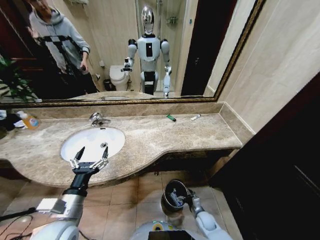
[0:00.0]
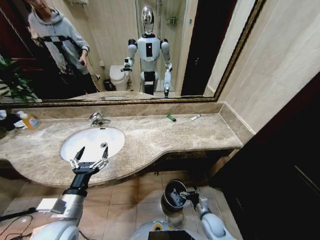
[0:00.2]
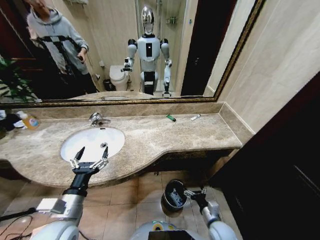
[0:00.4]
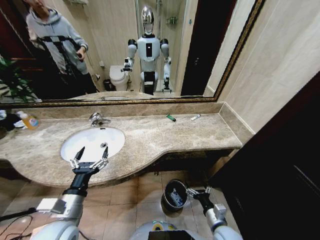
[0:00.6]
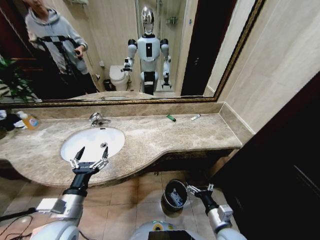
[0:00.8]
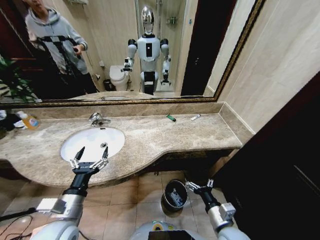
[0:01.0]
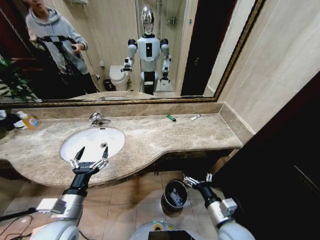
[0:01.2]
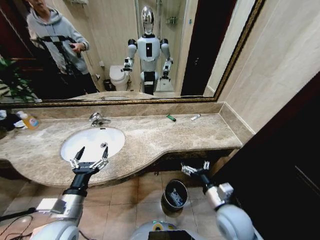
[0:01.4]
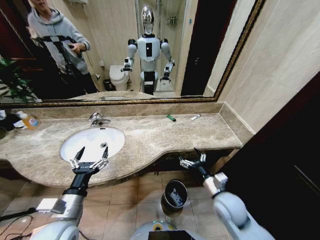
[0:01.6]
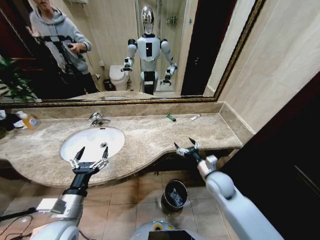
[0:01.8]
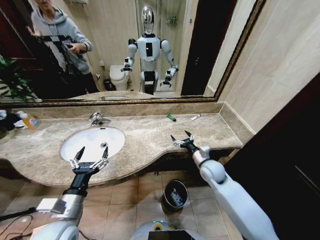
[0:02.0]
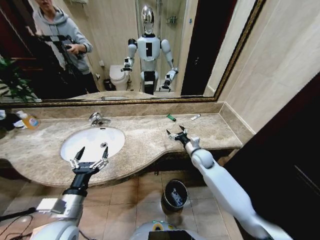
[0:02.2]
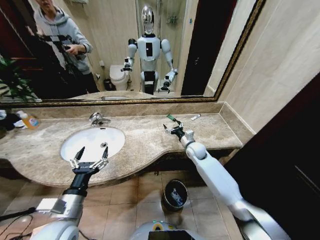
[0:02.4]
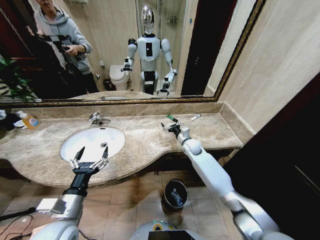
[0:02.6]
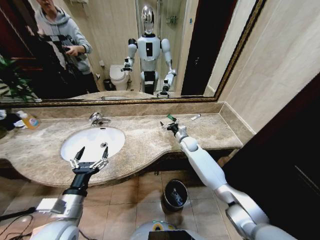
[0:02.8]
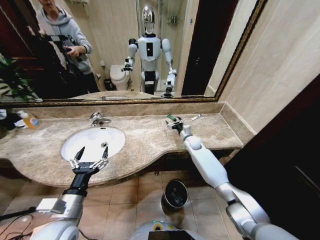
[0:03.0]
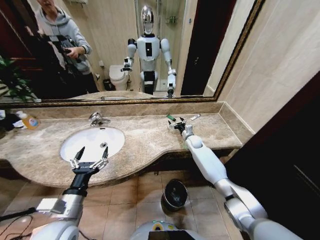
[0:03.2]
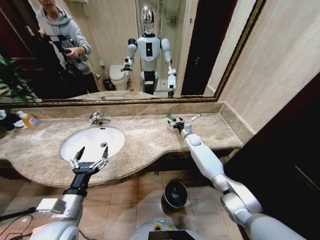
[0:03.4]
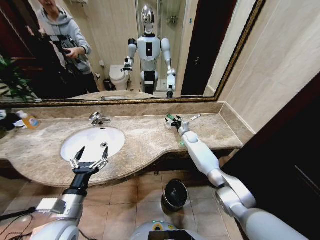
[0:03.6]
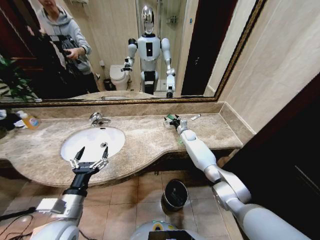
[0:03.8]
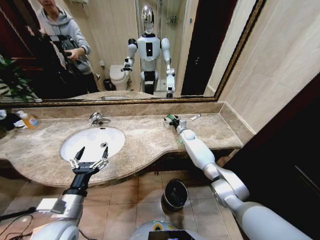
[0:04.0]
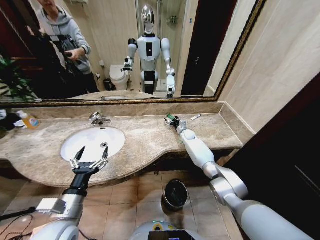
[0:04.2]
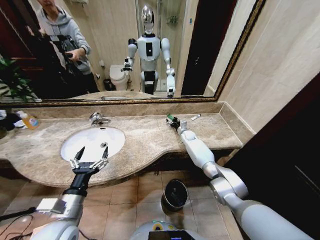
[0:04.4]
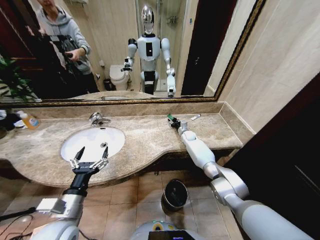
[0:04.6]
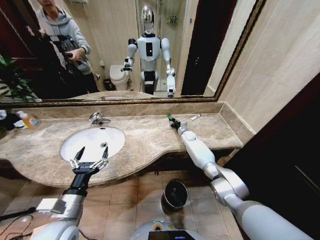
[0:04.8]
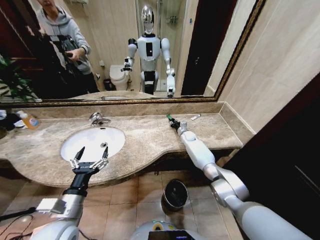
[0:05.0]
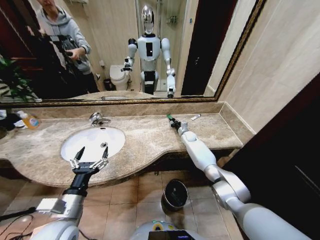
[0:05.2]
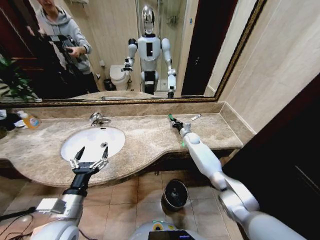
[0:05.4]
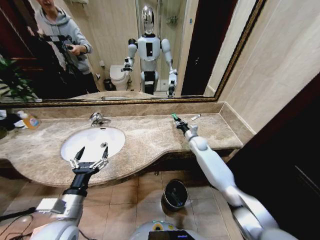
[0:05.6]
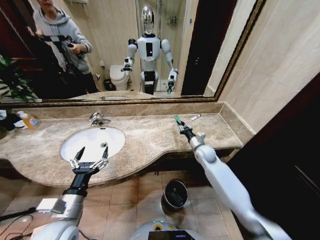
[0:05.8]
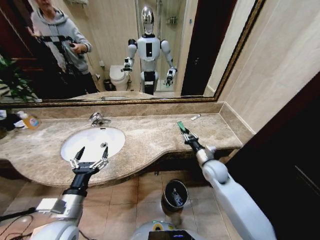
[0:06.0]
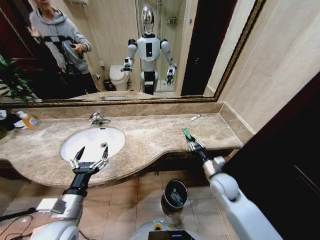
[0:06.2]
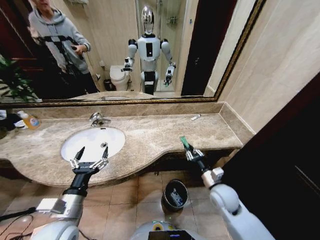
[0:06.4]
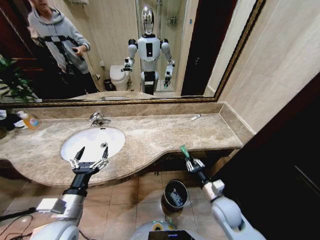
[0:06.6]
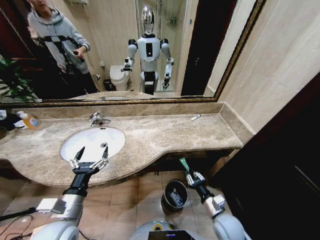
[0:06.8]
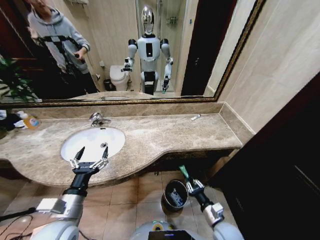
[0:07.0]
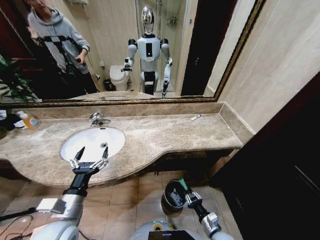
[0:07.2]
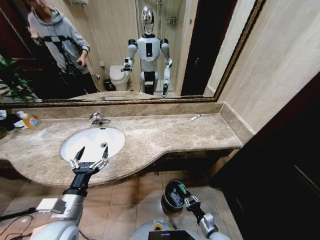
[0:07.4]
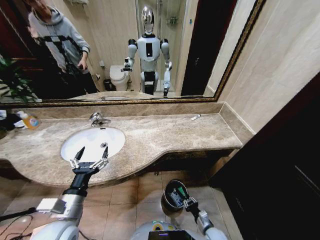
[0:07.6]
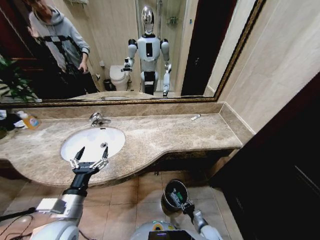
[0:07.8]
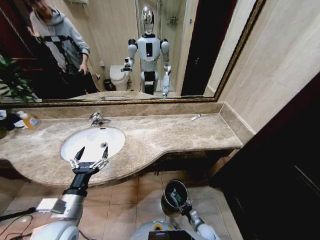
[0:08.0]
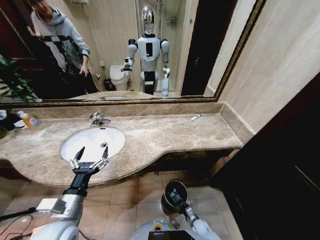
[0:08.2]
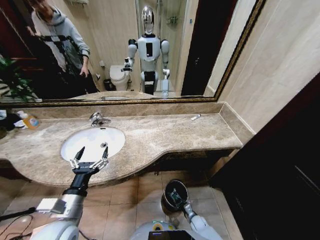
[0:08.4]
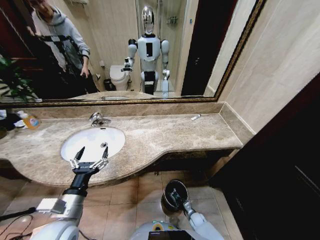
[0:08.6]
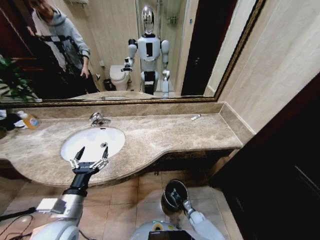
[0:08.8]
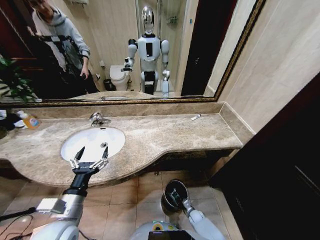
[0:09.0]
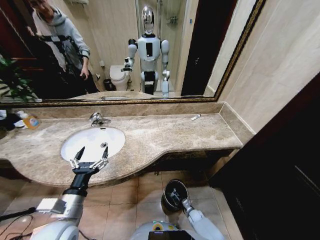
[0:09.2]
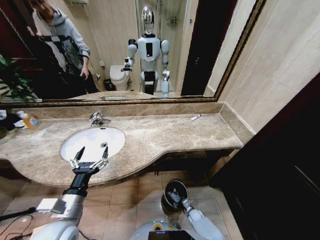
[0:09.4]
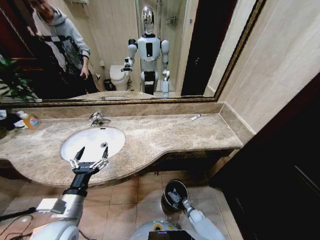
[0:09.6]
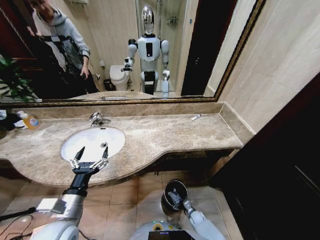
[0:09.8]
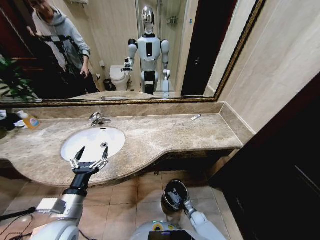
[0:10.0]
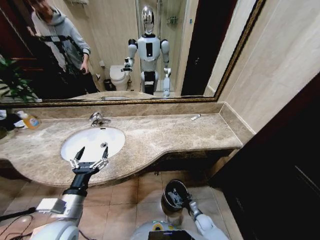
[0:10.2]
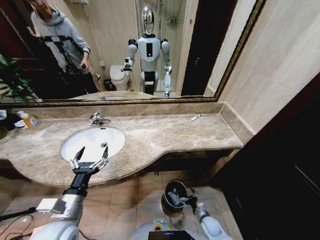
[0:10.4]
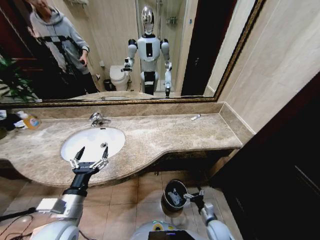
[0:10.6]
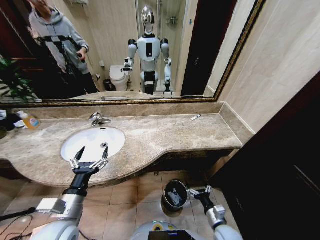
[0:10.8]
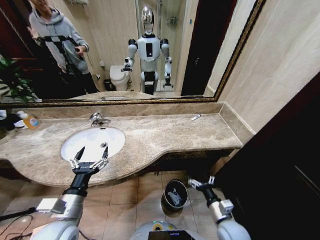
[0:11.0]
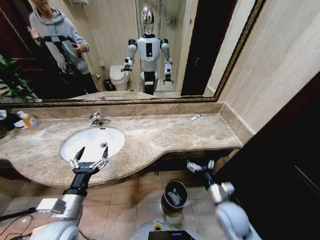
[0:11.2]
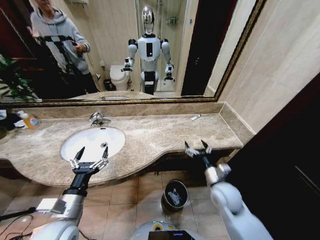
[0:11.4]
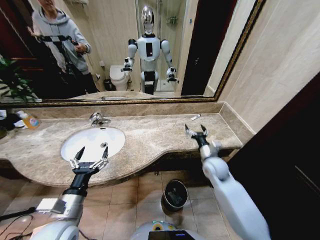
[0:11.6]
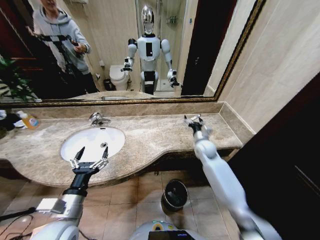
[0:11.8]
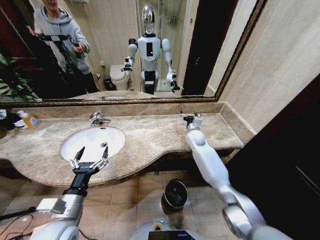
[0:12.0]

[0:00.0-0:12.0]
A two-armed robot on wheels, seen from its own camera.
Task of the whole recording: Pick up the trash from the sink and place it in the trash bin.
0.0 to 1.6 s: The right gripper shifts approximately 30 cm upward.
1.6 to 3.0 s: The right gripper moves forward, approximately 30 cm.
3.0 to 4.4 s: The right gripper travels forward by some 10 cm.
4.4 to 6.0 s: The right gripper moves backward, about 25 cm, and closes.
6.0 to 7.6 s: The right gripper is displaced downward and backward by some 35 cm.
7.6 to 9.0 s: The right gripper heads downward and forward, covering some 15 cm.
9.0 to 10.4 s: The right gripper goes approximately 10 cm upward, and opens up.
10.4 to 12.0 s: The right gripper is displaced upward and forward by roughly 50 cm.

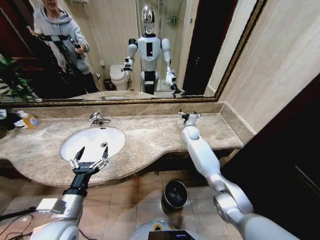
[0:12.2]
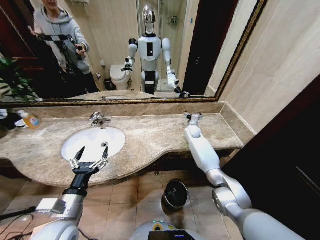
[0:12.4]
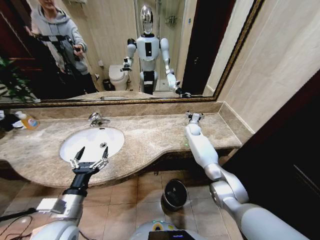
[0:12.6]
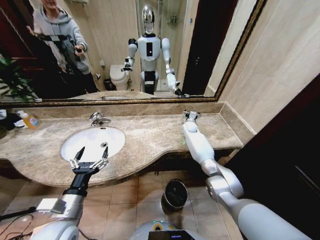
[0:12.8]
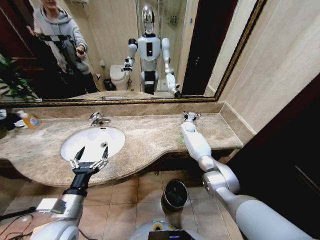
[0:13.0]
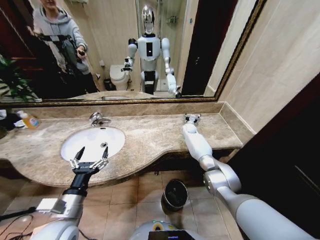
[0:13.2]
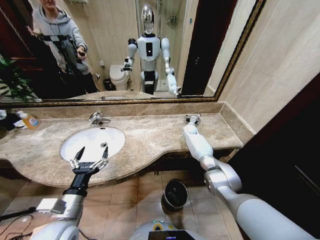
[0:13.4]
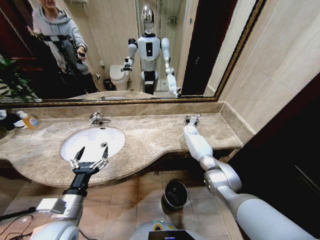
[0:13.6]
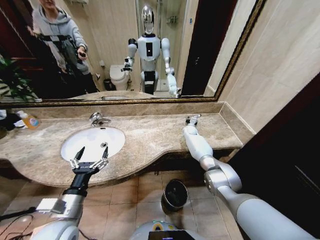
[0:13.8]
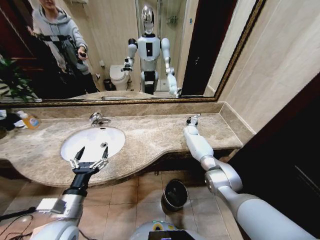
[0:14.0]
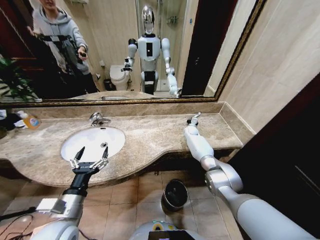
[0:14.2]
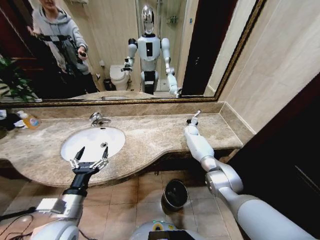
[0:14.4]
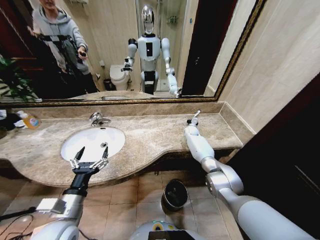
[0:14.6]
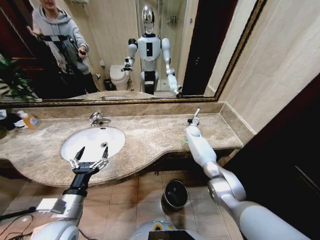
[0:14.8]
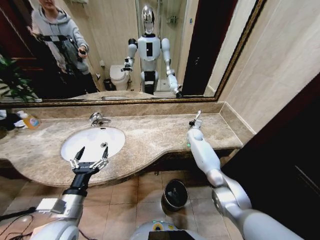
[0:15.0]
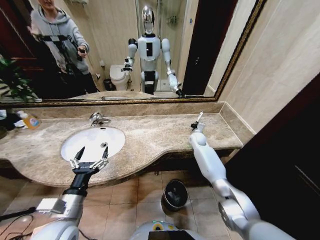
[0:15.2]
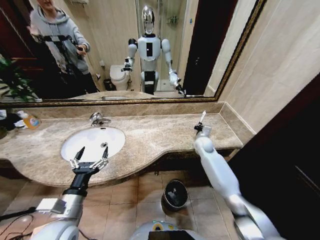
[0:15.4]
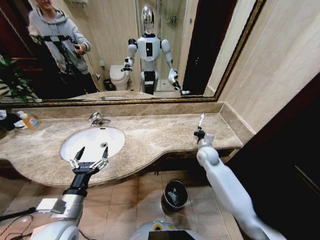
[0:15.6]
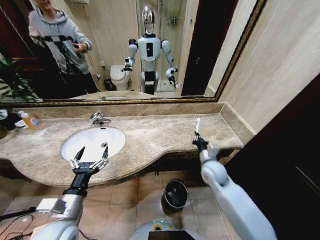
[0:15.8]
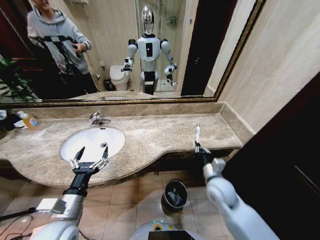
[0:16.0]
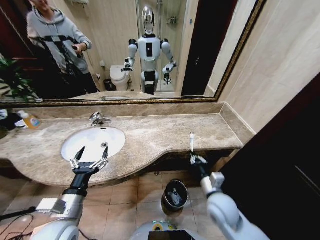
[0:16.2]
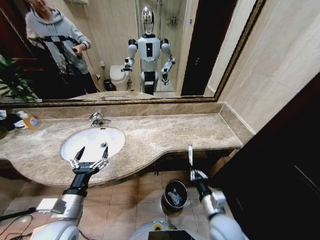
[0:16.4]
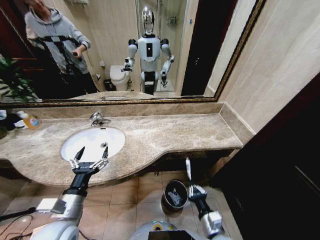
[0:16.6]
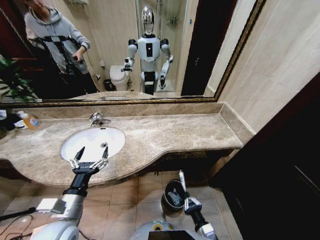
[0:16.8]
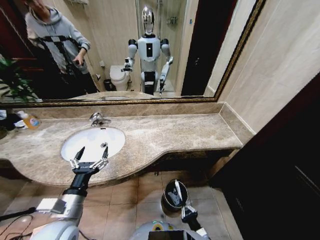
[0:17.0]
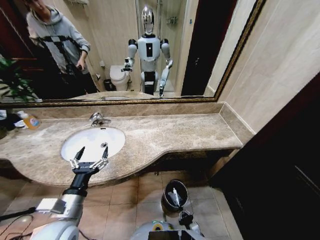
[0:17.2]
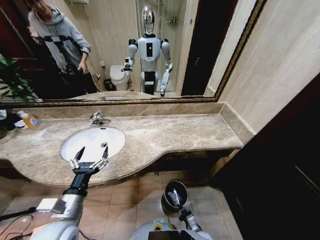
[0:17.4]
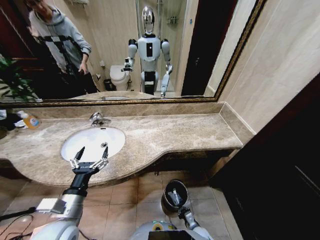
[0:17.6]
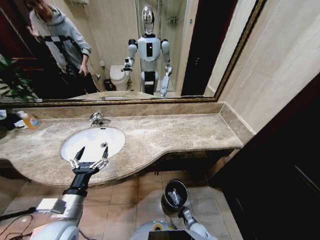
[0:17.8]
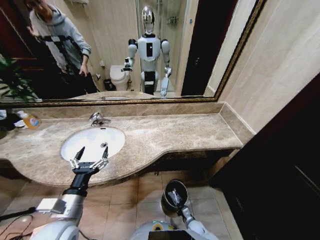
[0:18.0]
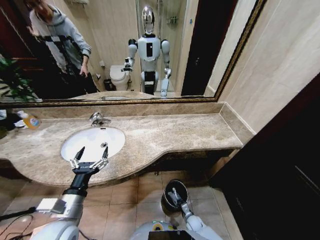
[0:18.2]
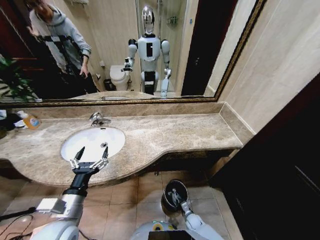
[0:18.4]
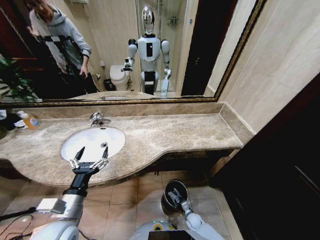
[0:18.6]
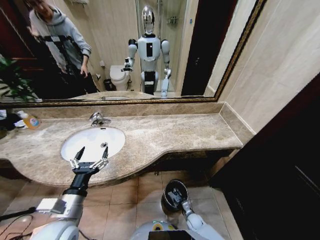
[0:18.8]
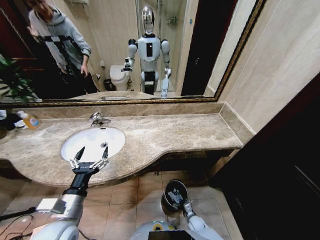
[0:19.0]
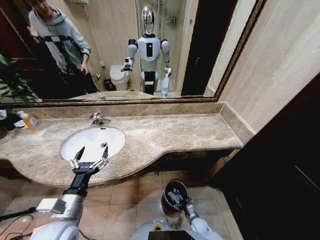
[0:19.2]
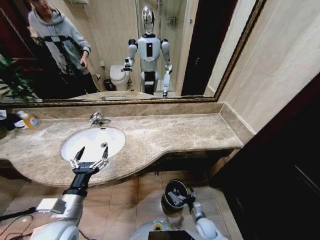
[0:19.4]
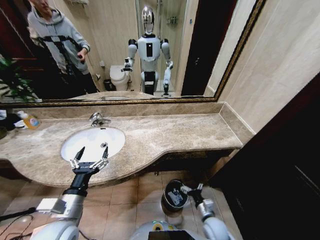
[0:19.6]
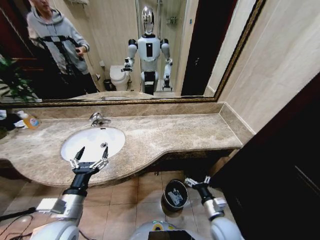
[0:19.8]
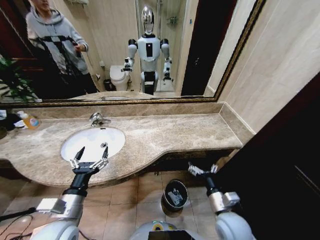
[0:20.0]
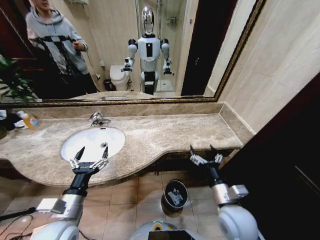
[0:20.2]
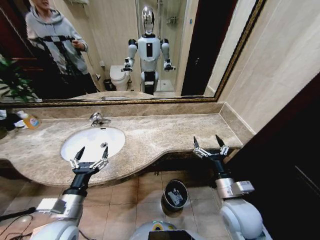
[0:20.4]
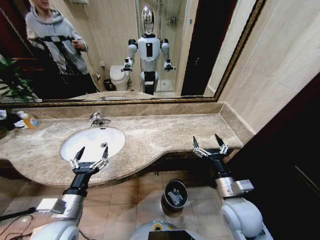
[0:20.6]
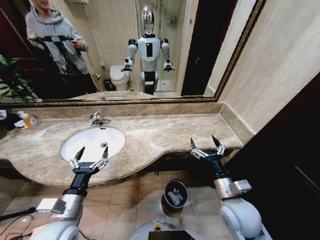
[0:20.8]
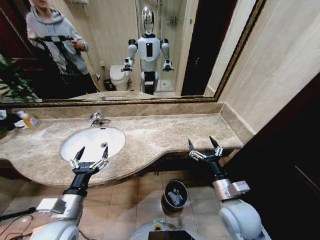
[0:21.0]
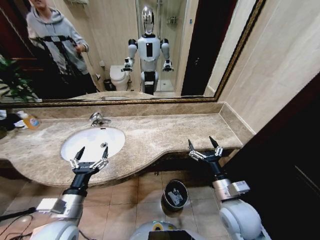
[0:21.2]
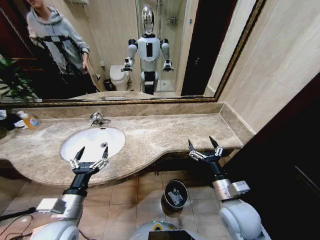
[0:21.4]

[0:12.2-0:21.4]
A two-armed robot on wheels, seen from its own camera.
Task of the whole recording: Pick up the trash from the sink and place it in the trash bin.
12.2 to 13.8 s: The right gripper heads forward and downward, covering about 10 cm, and closes its fingers.
13.8 to 15.2 s: The right gripper shifts about 10 cm backward, and closes.
15.2 to 16.8 s: The right gripper heads backward, covering approximately 50 cm.
16.8 to 18.4 s: The right gripper goes roughly 30 cm downward and forward.
18.4 to 19.8 s: The right gripper moves upward, approximately 25 cm, and opens its fingers.
19.8 to 21.4 s: The right gripper moves upward, some 15 cm.

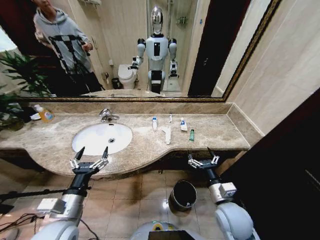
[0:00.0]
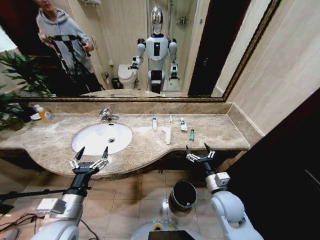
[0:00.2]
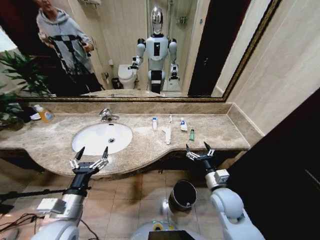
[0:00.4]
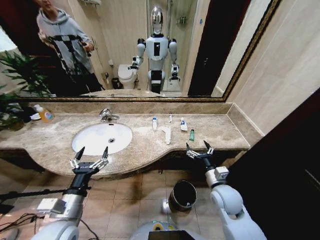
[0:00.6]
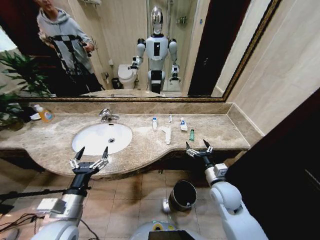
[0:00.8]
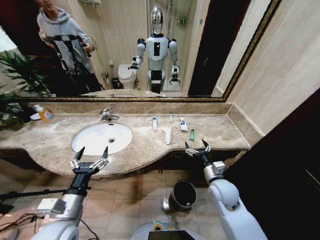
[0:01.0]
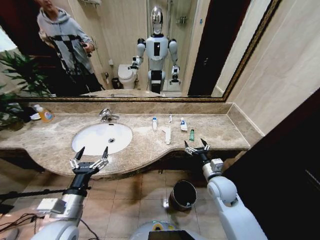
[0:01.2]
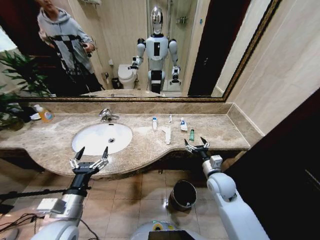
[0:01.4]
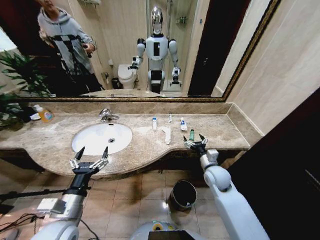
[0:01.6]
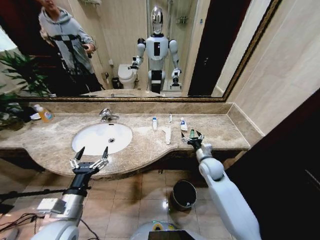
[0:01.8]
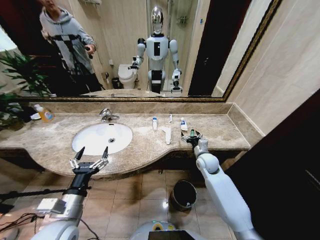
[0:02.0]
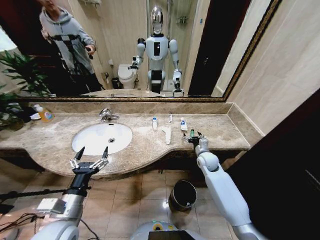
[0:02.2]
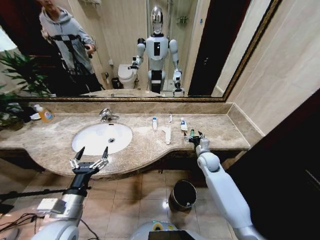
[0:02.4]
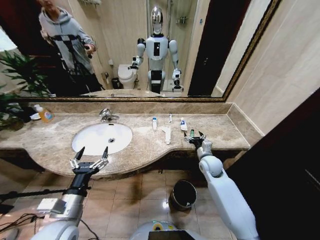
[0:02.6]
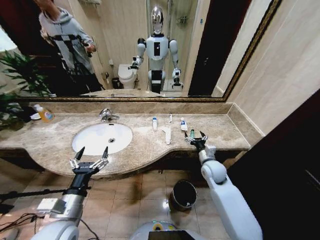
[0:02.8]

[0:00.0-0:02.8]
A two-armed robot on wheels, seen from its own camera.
Task of the whole recording: Pick up the trash from the sink and place it in the trash bin.
1.4 to 2.8 s: The right gripper is displaced forward by about 5 cm.
